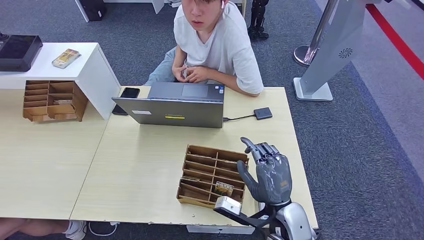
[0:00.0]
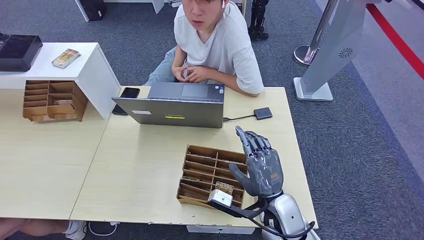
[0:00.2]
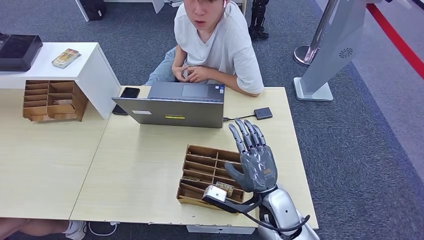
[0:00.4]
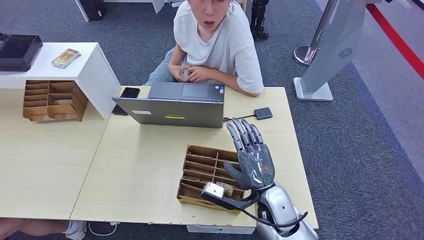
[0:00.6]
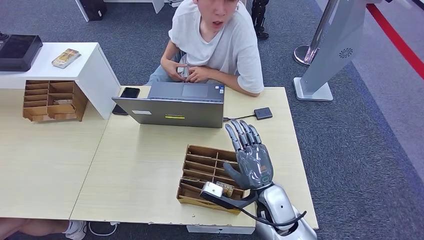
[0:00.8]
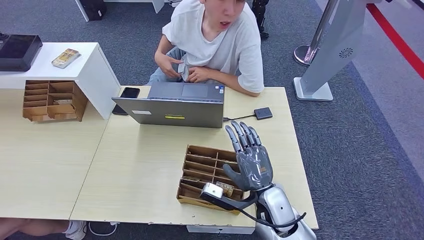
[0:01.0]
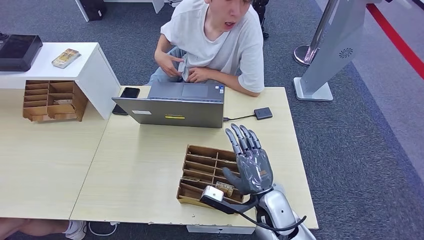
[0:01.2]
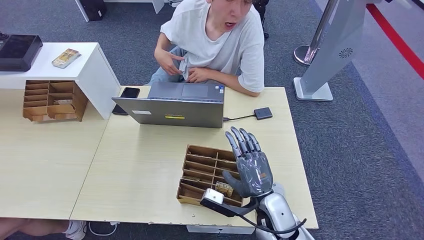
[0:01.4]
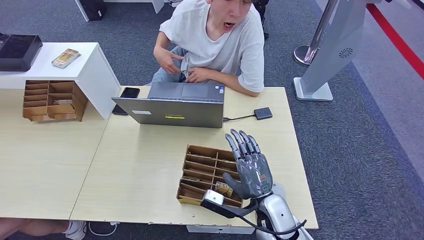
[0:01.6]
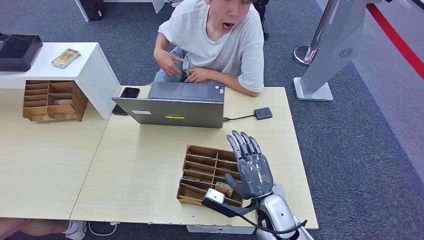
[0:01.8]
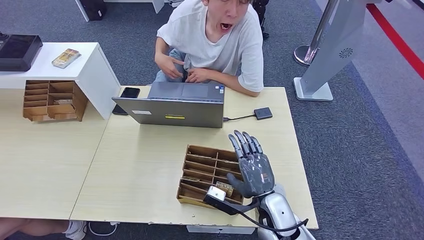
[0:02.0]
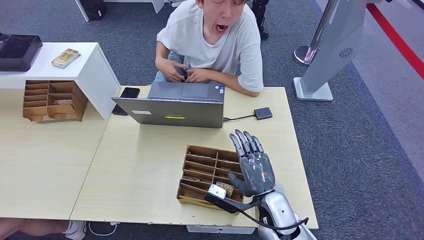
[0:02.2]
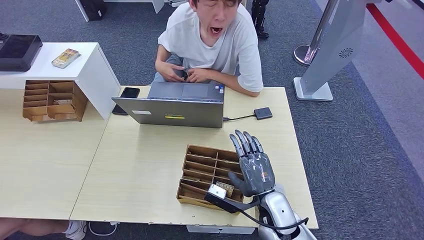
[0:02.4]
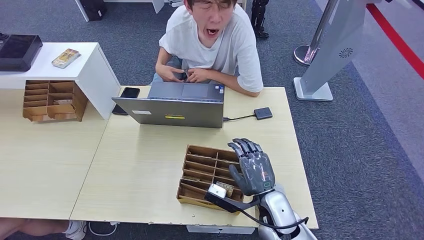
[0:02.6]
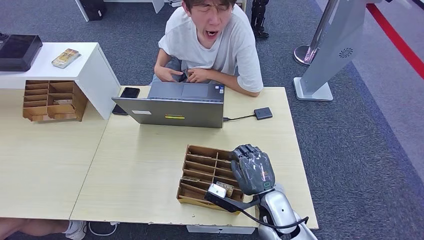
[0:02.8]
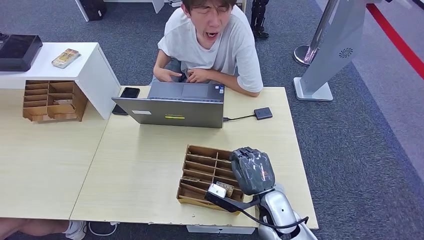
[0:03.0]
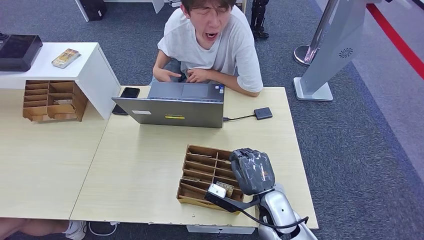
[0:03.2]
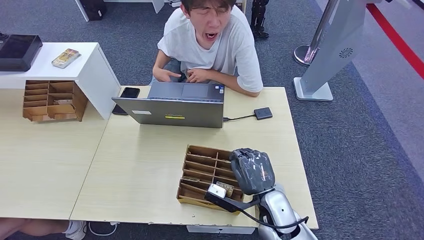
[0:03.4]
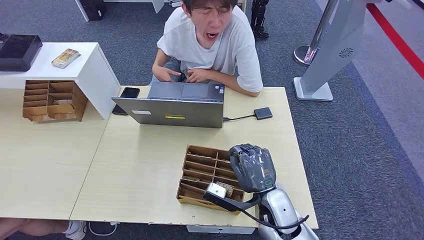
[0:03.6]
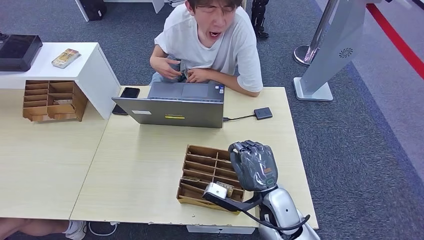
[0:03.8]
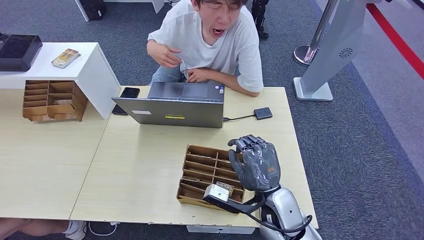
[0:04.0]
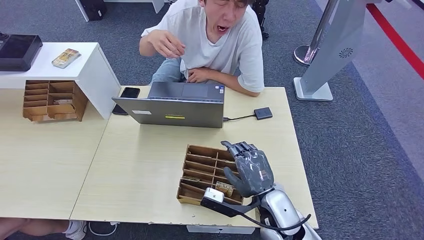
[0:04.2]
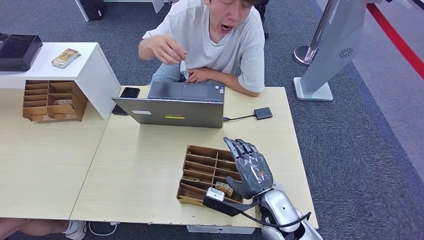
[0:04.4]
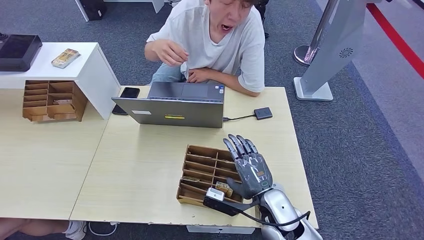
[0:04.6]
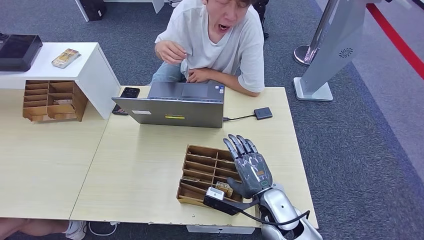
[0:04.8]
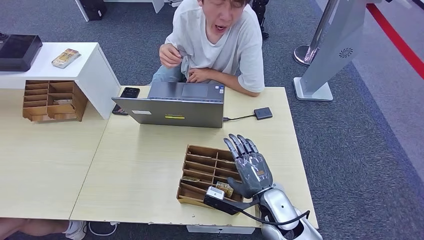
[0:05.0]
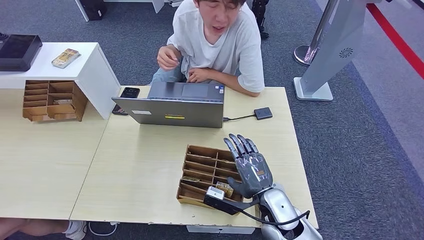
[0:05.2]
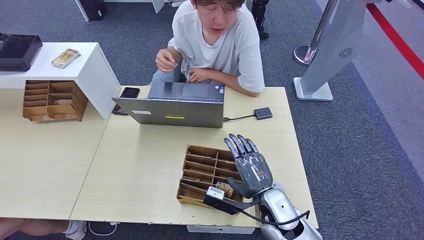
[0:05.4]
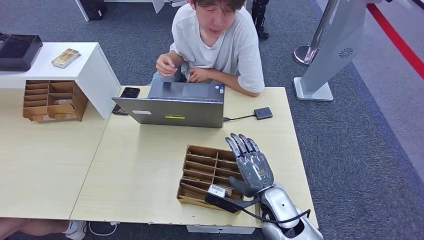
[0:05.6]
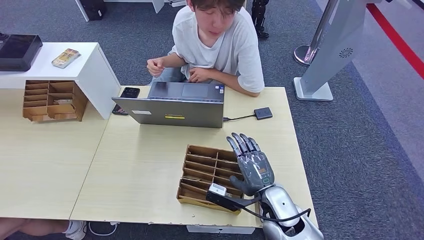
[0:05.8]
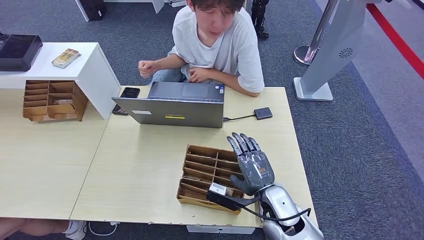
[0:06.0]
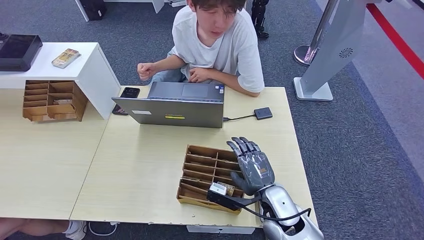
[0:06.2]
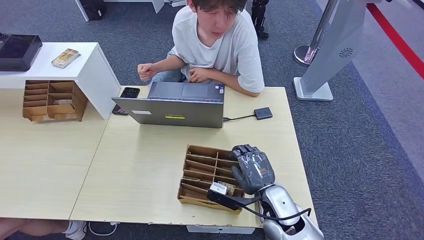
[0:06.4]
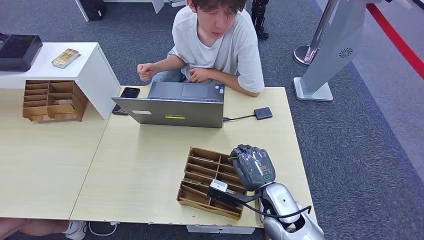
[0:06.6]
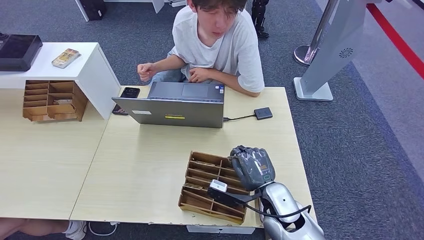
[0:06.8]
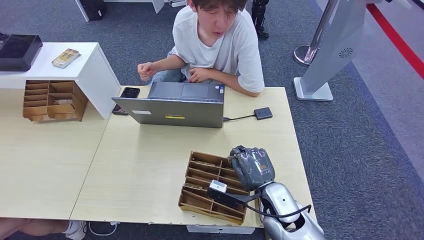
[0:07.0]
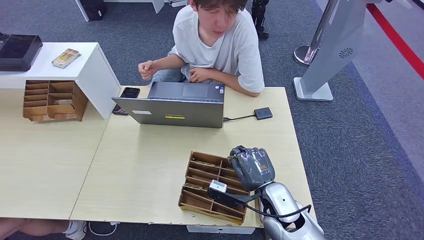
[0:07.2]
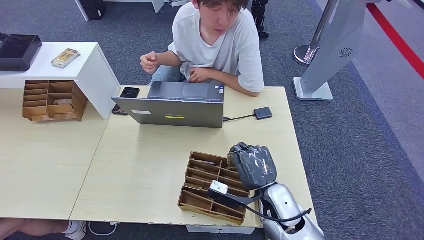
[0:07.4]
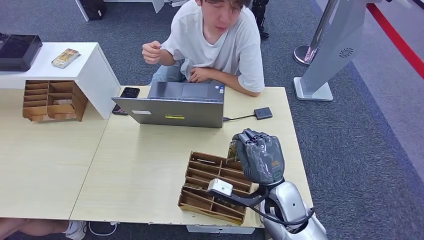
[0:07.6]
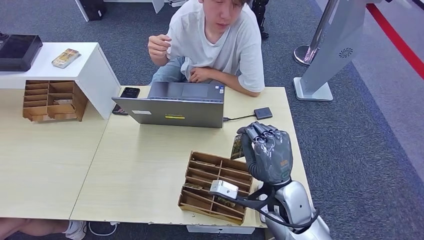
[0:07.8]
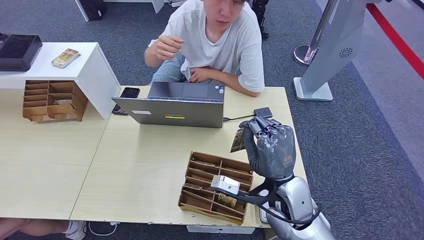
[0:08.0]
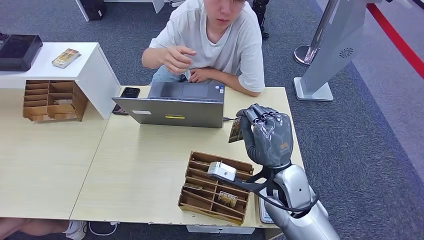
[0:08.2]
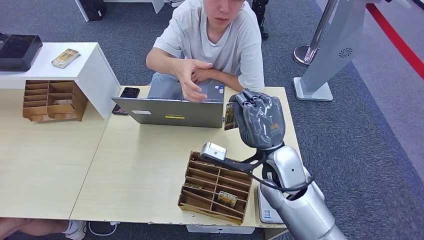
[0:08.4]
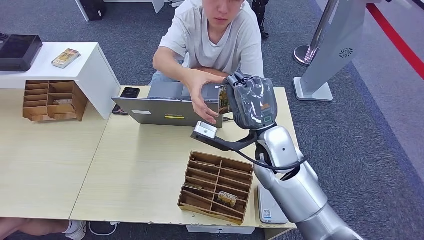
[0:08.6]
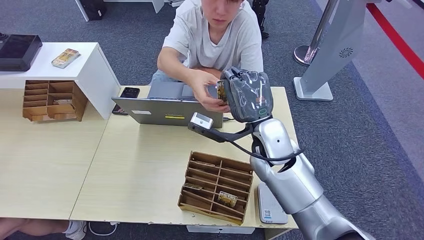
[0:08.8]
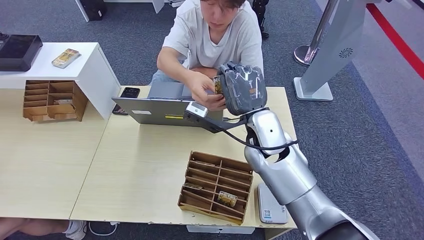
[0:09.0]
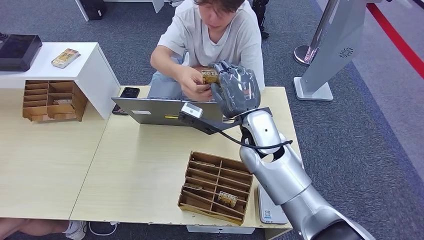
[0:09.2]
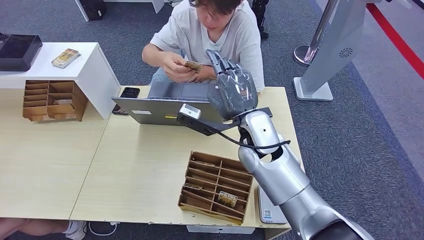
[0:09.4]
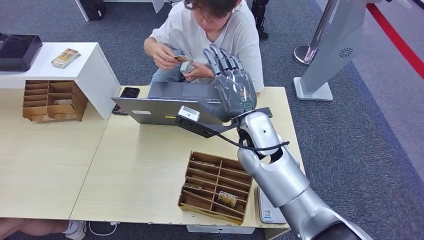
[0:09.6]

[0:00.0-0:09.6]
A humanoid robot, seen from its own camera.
Step, 0:04.4 to 0:07.8: Pick up the room key from the key card box.
Step, 0:08.0 to 0:09.6: Hand the room key to the person.
0:00.0 to 0:03.2: The hands stay close to where they were, moving slightly.
0:03.2 to 0:04.8: There are only small adjustments of the hands.
0:04.8 to 0:06.4: The two hands keep their place.
0:06.4 to 0:08.0: The right hand travels upward by about 10 cm.
0:08.0 to 0:09.6: The right hand travels forward, upward and to the left by roughly 15 cm.
